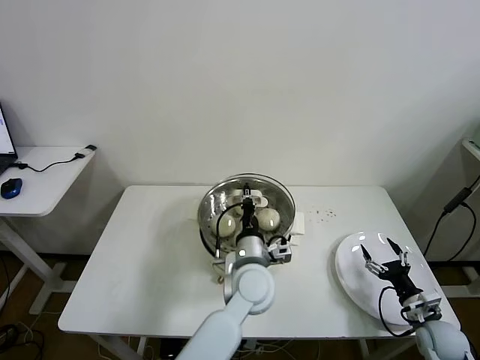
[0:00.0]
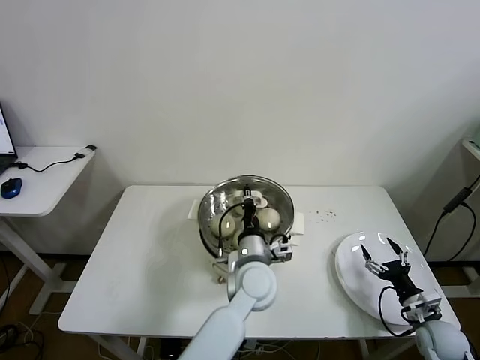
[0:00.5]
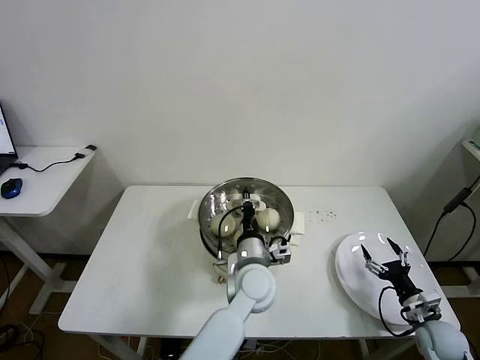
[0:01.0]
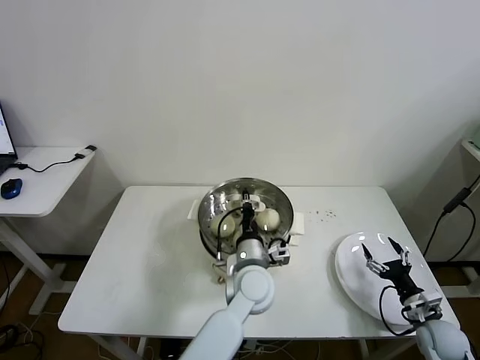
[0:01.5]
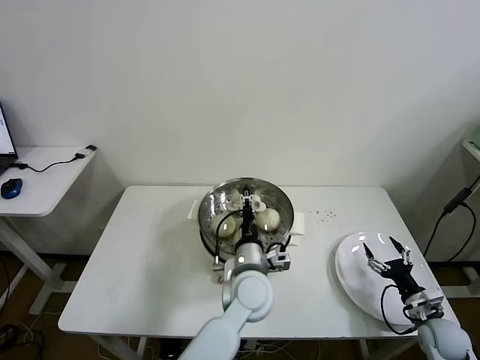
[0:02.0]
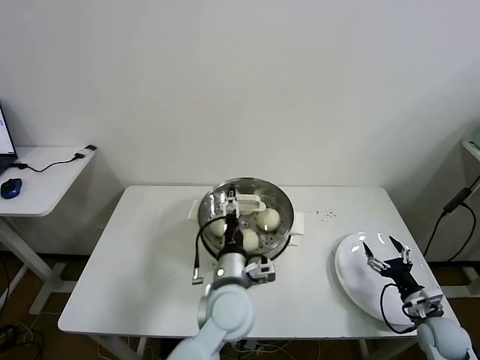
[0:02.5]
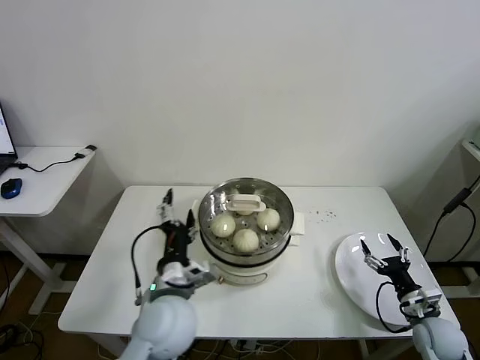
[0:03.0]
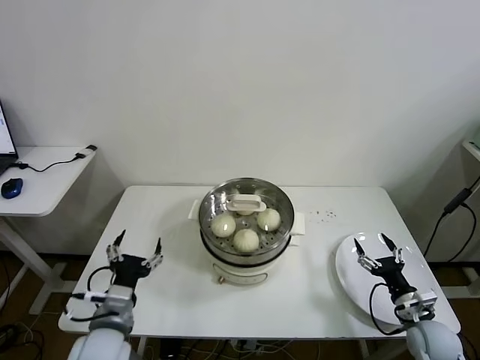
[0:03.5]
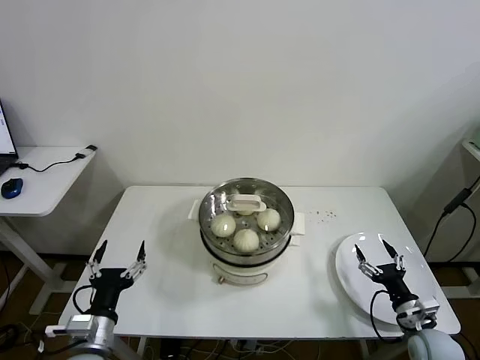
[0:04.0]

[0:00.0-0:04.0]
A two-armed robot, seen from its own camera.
Task of the whole recording: take steamed baozi put them in steamer then cover it.
Step, 0:00.0 to 0:02.0: Place the pot lid on the steamer with left gripper.
0:00.0 to 0:02.0: The left gripper opens.
0:02.0 to 0:04.0: The right gripper ends up roughly 5 cm from where it was. Meanwhile the left gripper heads to the left and backward, covering approximately 35 cm, and opens.
